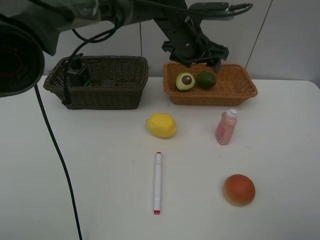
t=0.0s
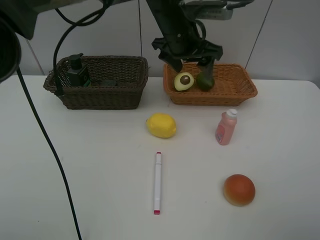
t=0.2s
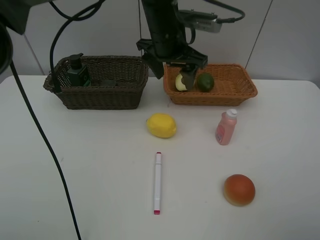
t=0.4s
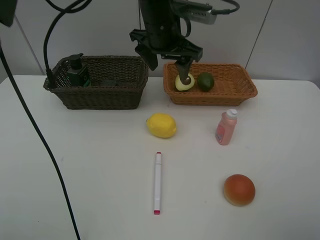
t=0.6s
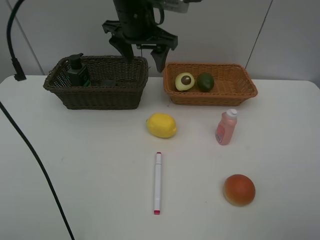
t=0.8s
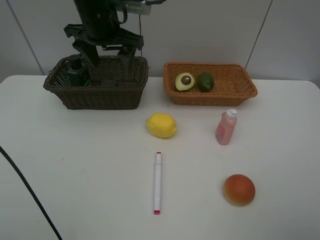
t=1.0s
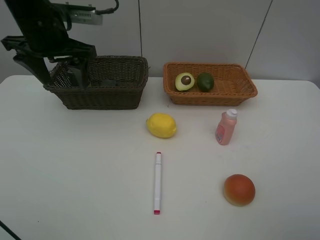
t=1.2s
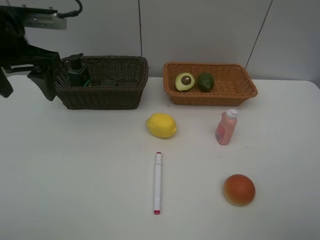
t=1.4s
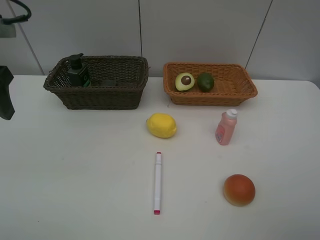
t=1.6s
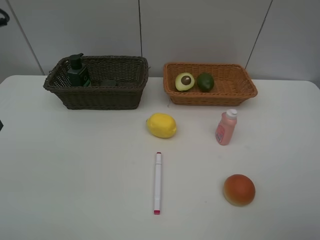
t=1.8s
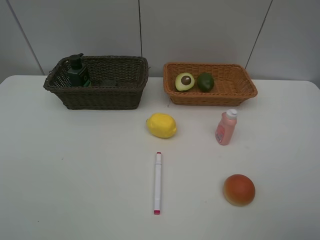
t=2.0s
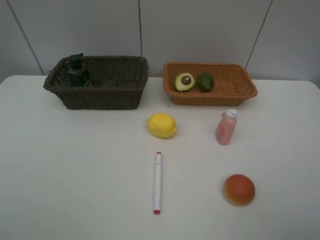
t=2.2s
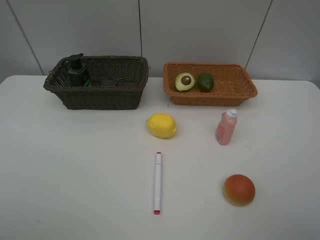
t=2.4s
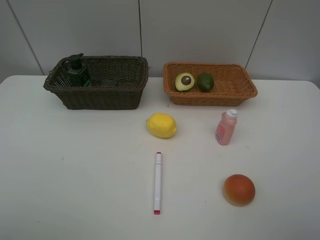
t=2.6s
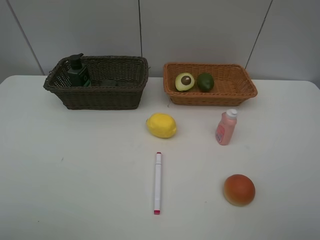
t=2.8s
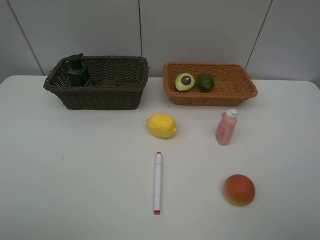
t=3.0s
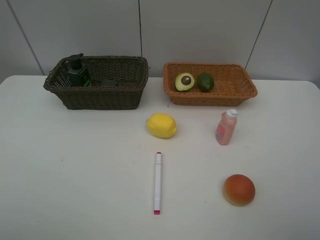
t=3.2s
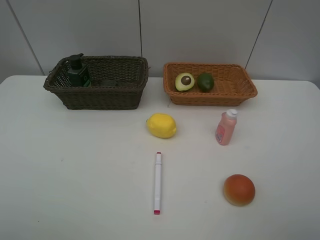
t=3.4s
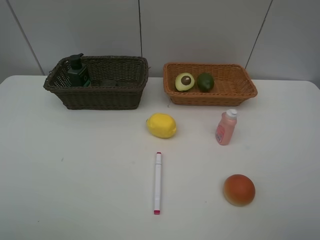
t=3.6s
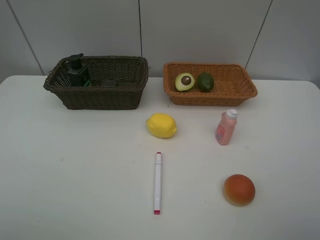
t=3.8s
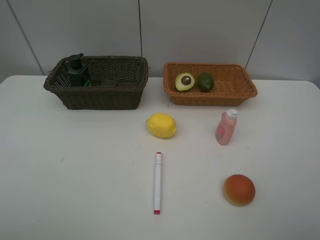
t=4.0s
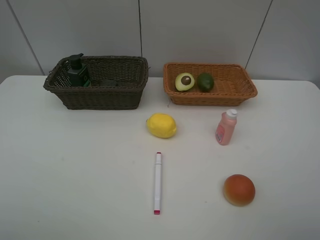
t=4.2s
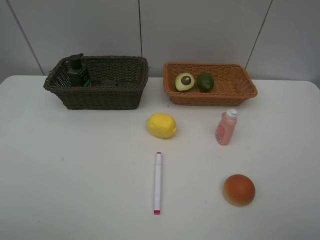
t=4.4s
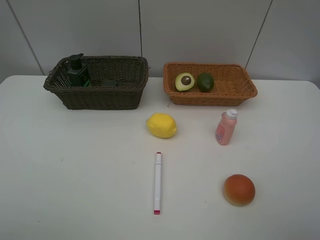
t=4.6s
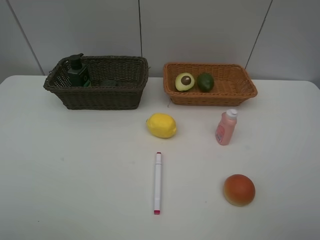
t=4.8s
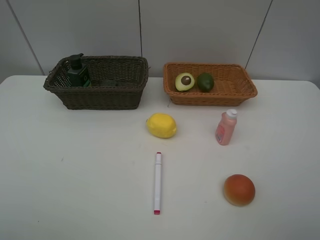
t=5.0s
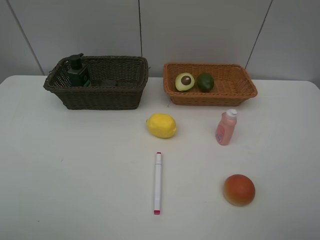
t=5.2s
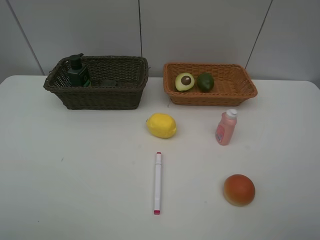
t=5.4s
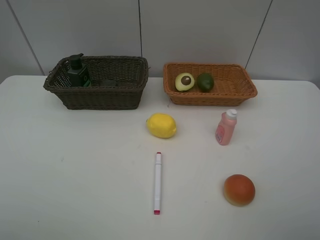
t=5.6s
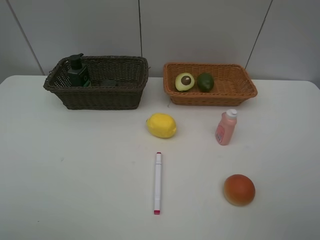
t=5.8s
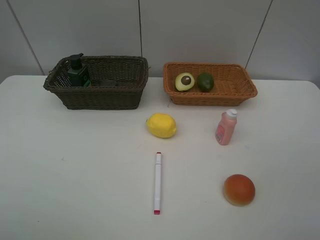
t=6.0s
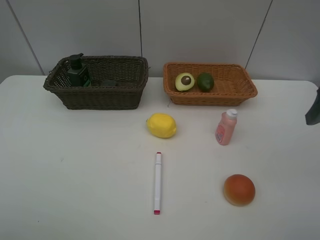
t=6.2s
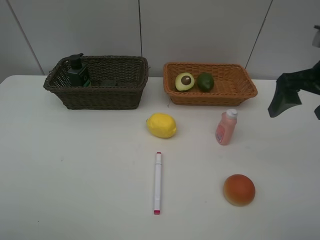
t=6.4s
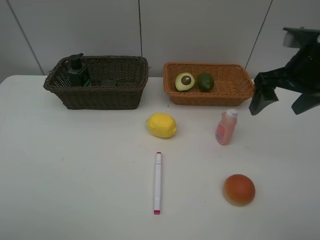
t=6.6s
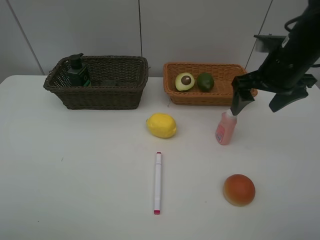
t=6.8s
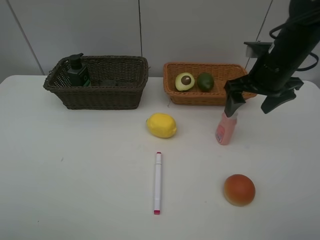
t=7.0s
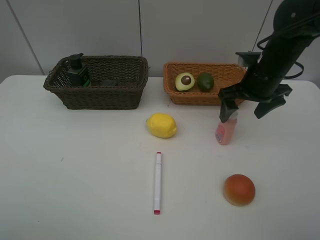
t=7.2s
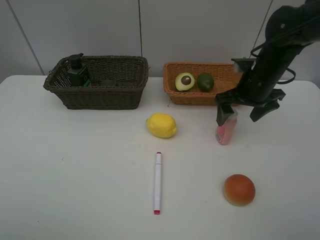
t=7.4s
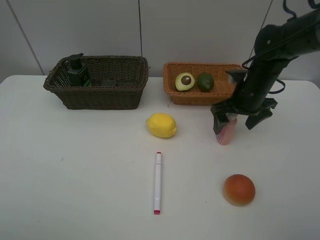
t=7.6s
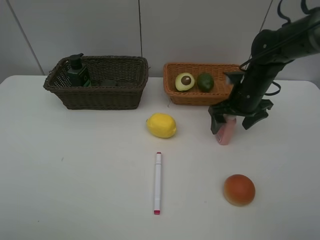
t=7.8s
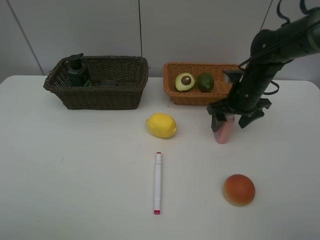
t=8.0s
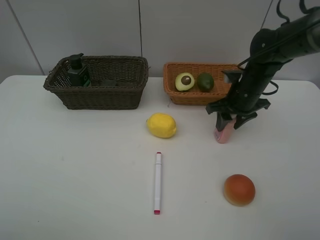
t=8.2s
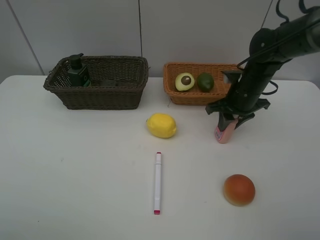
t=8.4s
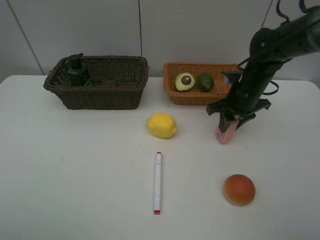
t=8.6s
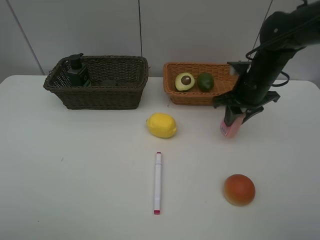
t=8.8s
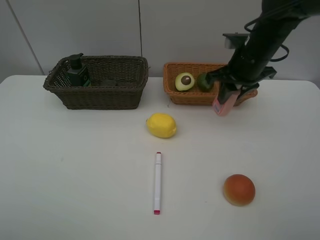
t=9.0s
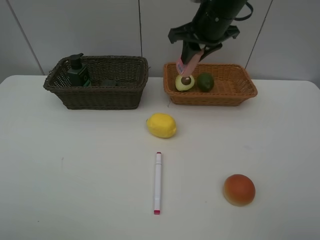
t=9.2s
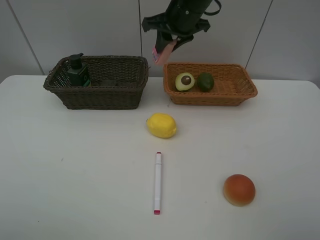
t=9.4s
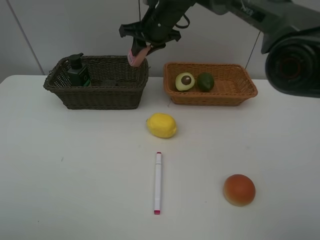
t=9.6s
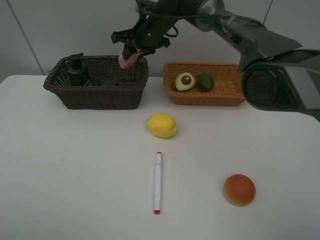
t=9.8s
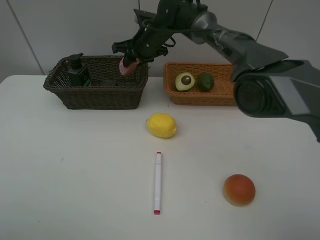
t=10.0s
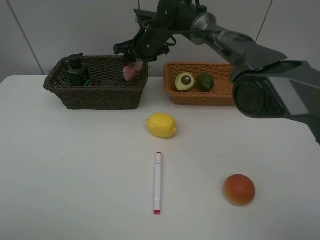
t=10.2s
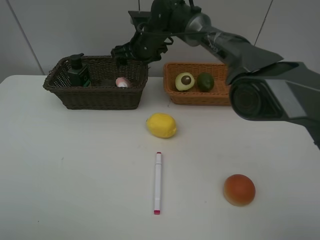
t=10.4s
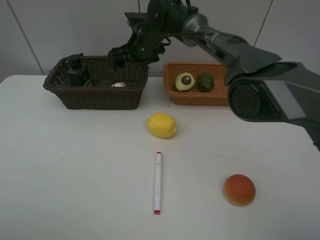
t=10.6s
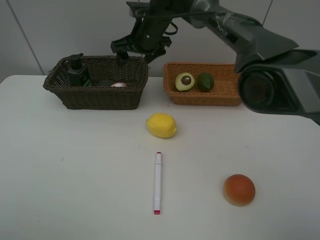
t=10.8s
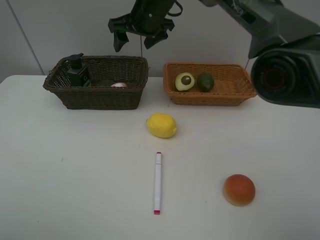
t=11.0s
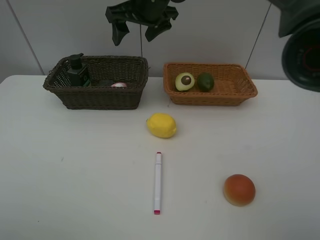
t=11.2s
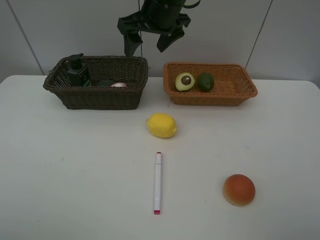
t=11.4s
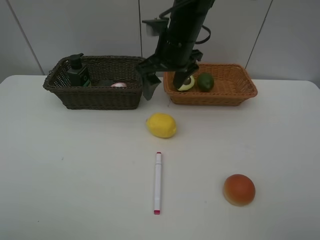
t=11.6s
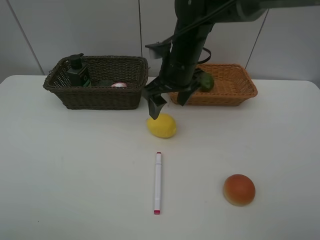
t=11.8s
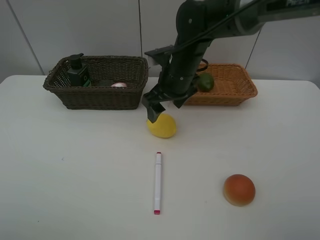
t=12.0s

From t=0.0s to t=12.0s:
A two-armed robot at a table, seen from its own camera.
Task of the whole recording: Place multiple objects separately in different baskets.
Step, from t=0.0s to t=8.8s: Pick up the laundry detergent with right gripper.
Step, from t=9.0s to t=10.4s: Place the laundry detergent in the dark basket with right gripper.
From t=0.0s to t=1.6s: The left gripper goes approximately 40 cm to the left and backward.
From t=1.6s to t=3.0s: The left gripper is displaced backward by approximately 20 cm.
From t=6.0s to t=7.6s: The right gripper heads forward, downward and to the left, covering approximately 25 cm.
From t=7.6s to t=9.0s: The right gripper heads upward, covering roughly 10 cm, and closes.
From t=9.0s to t=10.4s: The right gripper moves to the left and forward, roughly 25 cm, and opens.
From t=10.4s to t=12.0s: The right gripper shifts approximately 15 cm backward and to the right.

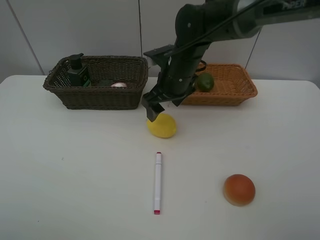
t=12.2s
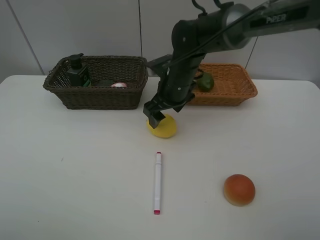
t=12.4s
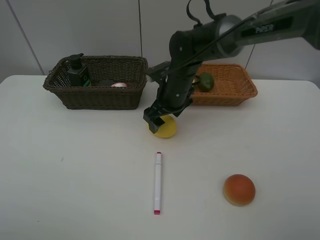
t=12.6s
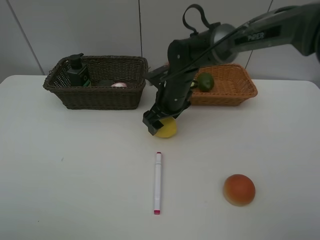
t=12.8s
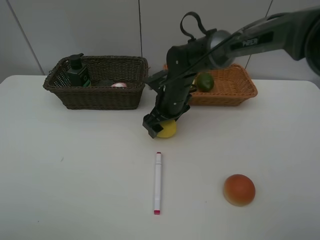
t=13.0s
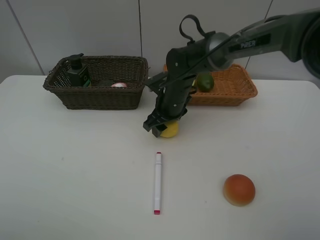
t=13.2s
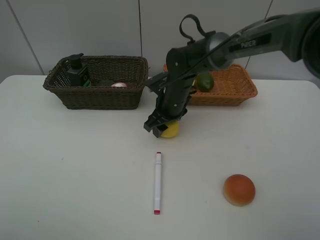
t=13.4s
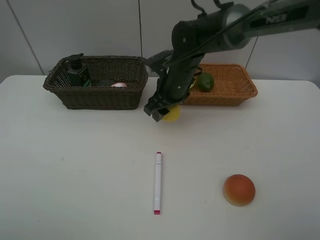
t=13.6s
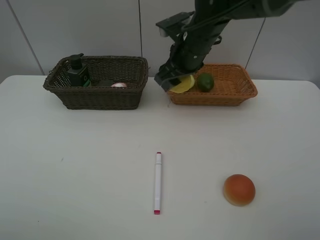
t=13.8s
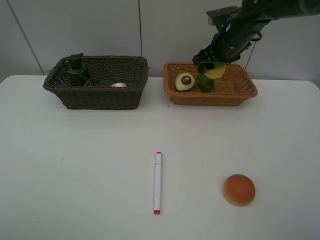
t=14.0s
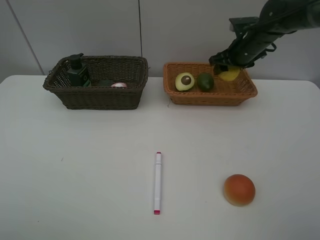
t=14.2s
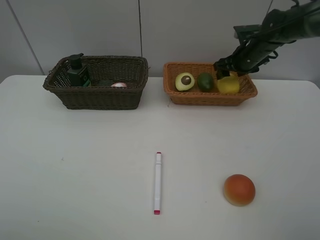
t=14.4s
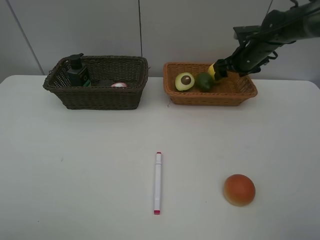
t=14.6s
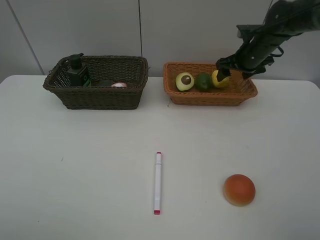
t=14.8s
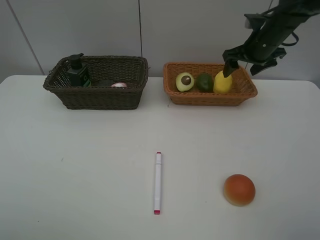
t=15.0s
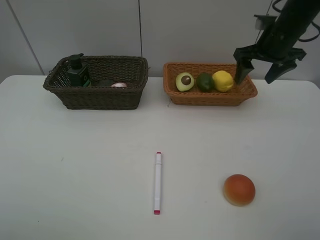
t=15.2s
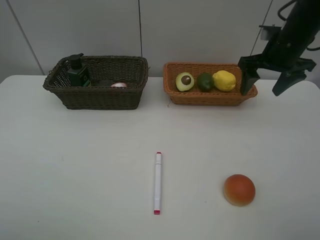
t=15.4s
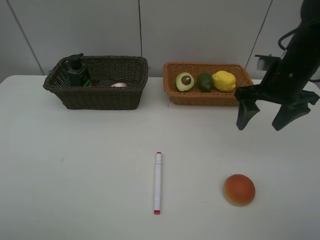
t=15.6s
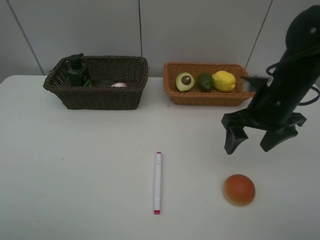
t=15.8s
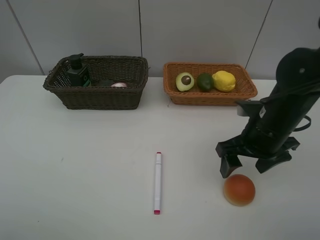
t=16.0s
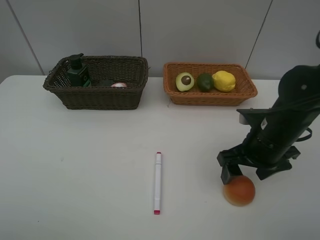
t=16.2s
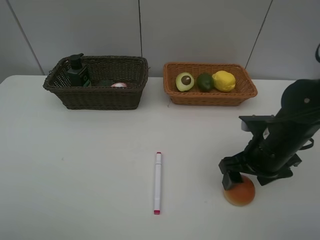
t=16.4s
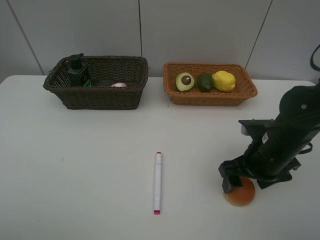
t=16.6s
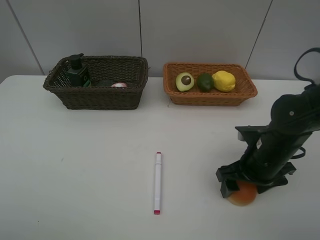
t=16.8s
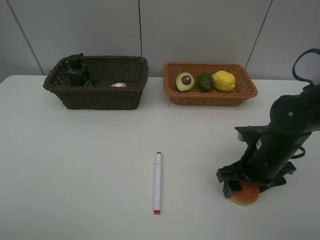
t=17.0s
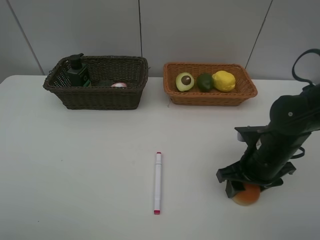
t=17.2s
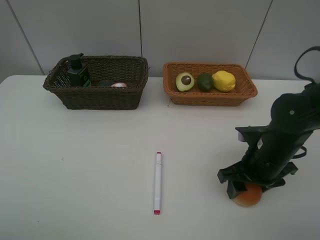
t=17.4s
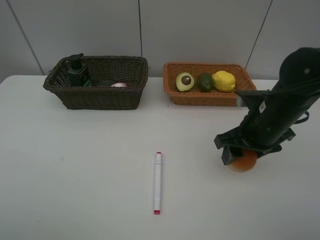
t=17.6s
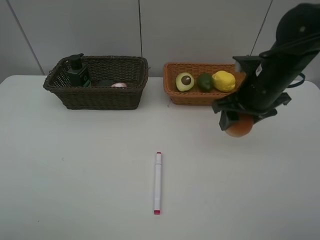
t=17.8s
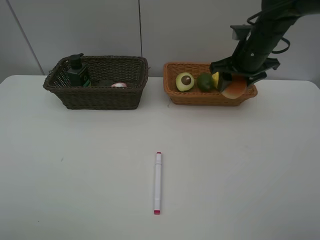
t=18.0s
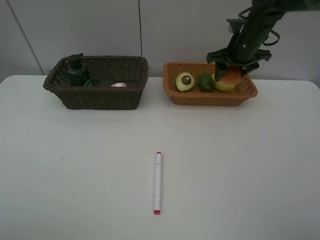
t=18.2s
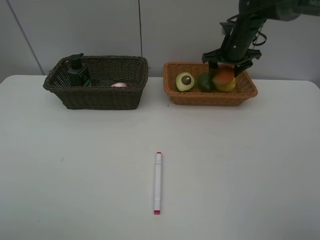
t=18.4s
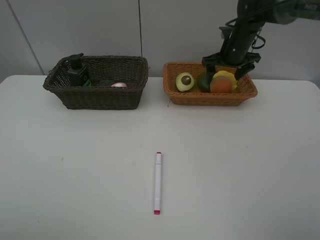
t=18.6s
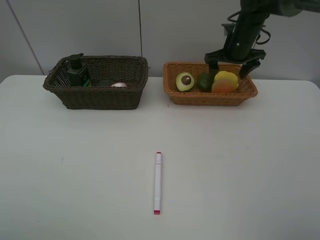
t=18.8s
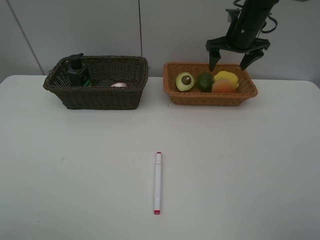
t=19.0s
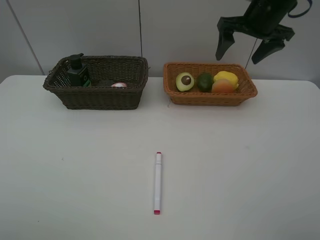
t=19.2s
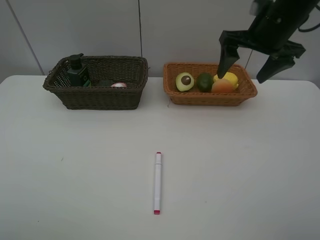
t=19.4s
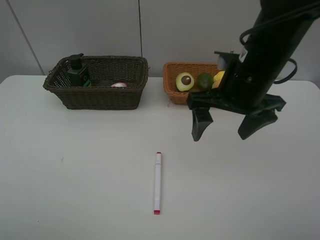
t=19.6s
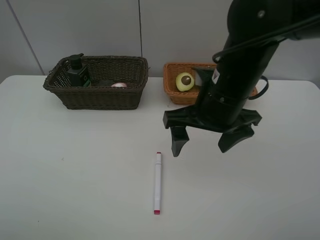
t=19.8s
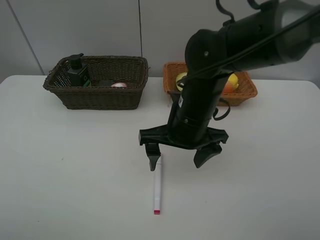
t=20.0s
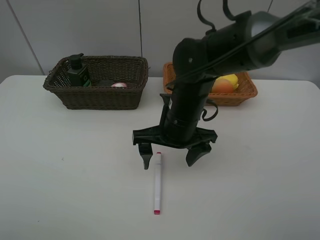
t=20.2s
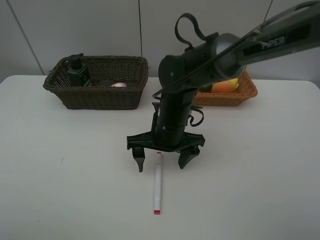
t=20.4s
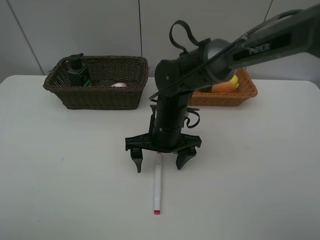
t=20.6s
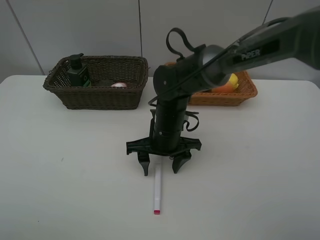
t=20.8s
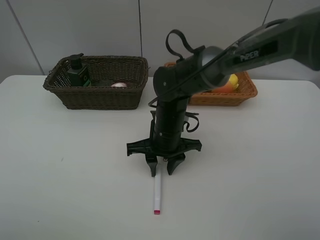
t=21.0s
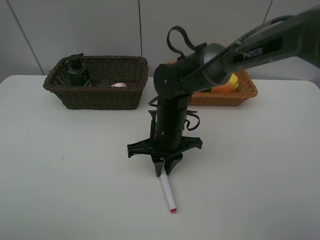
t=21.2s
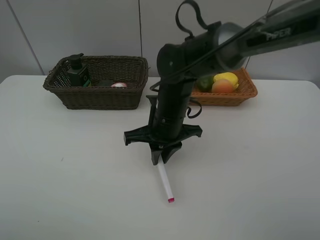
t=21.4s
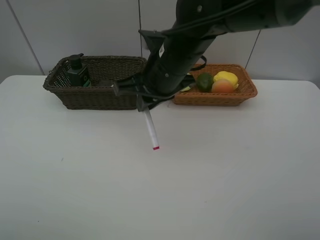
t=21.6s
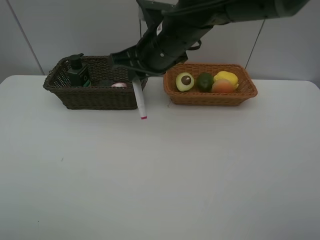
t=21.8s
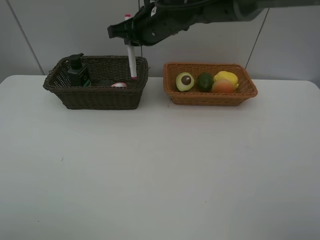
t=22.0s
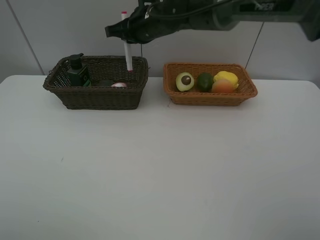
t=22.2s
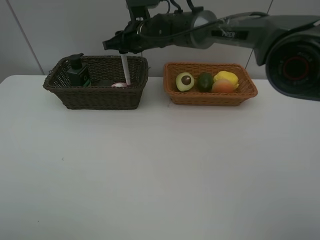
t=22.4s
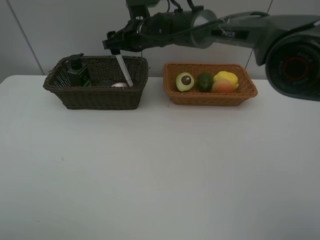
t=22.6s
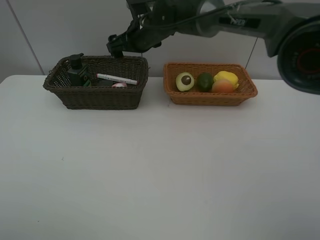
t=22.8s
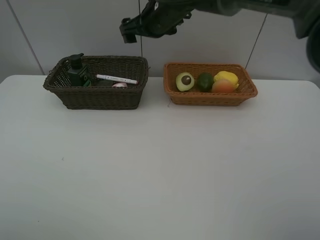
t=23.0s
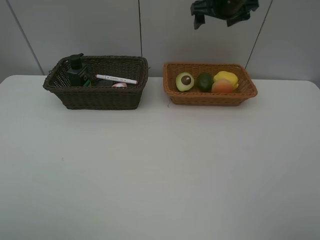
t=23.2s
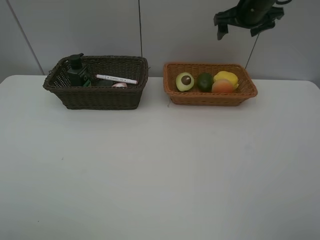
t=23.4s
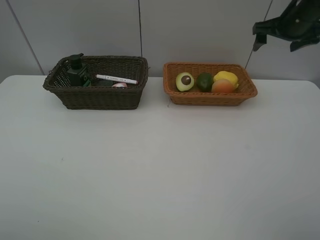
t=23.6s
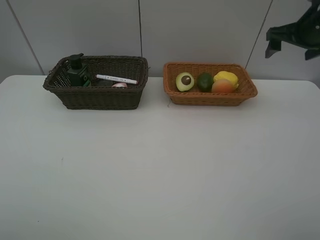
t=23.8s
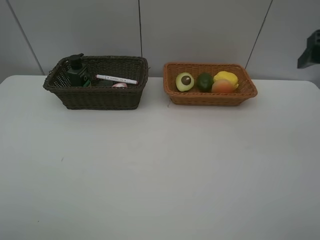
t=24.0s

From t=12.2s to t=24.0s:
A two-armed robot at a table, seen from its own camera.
Task of the whole recording: Place multiple objects separately in different baskets.
Step, from t=13.8s to t=14.6s: Place the lemon in the light basket with right gripper.
Step, from t=14.8s to t=17.4s: Pick up egg yolk pastry with right gripper.
Step, from t=17.6s to t=18.8s: Place the egg yolk pastry in the light basket with right gripper.
Step, from t=19.0s to t=21.4s: Pick up the red marker with right gripper.
Step, from t=21.6s to t=22.6s: Place the red marker in the dark basket with right gripper.
From t=12.2s to t=13.6s: The right gripper closes up.
From t=13.6s to t=15.2s: The right gripper travels to the right by approximately 20 cm.
From t=15.2s to t=16.6s: The right gripper is displaced backward and downward by some 25 cm.
From t=16.6s to t=18.2s: The right gripper goes some 25 cm forward.
From t=18.2s to t=19.6s: The right gripper goes about 20 cm backward, and opens up.
From t=19.6s to t=21.0s: The right gripper goes some 20 cm downward and to the left, and closes.
From t=21.0s to t=22.6s: The right gripper goes approximately 20 cm forward and upward, and opens.
From t=22.6s to t=24.0s: The right gripper moves to the right and backward, approximately 40 cm.
